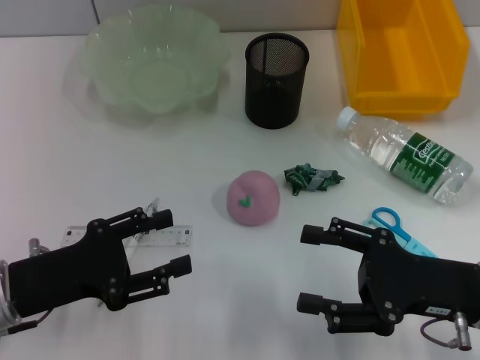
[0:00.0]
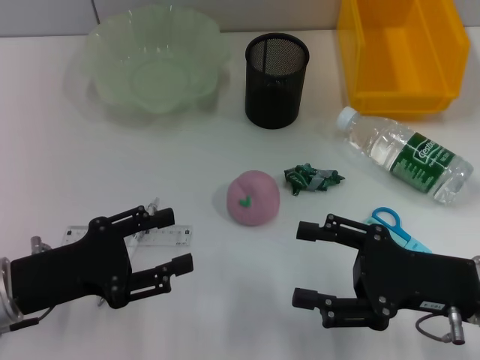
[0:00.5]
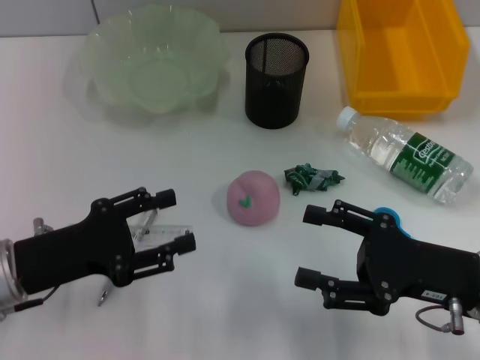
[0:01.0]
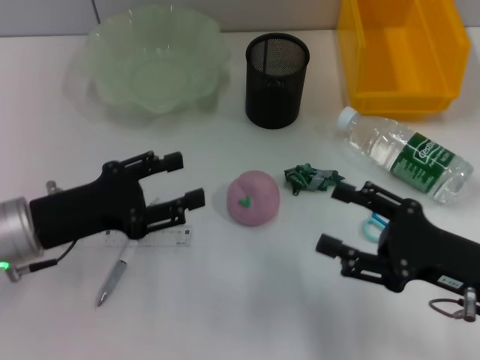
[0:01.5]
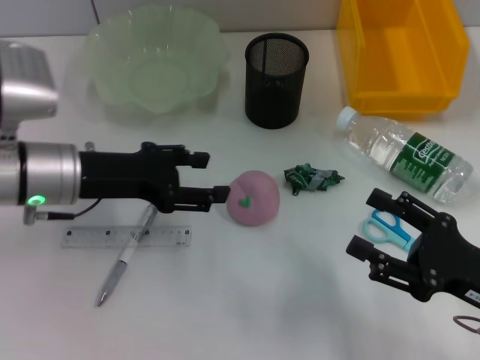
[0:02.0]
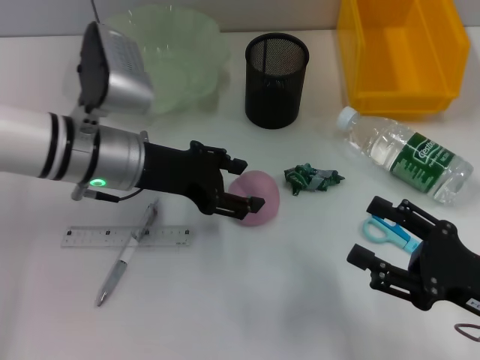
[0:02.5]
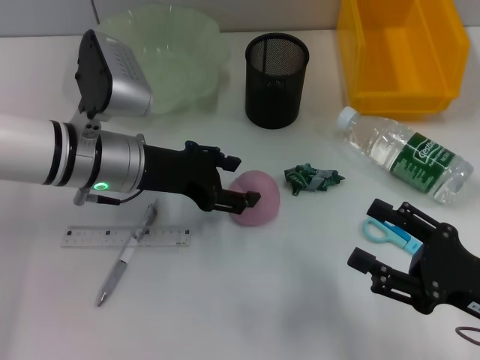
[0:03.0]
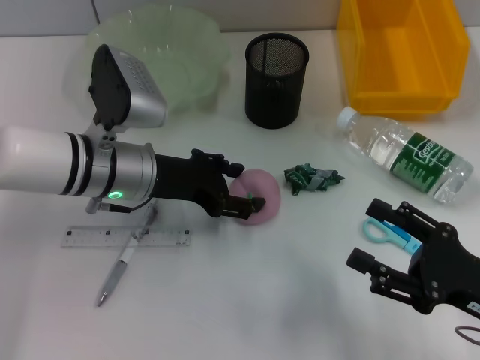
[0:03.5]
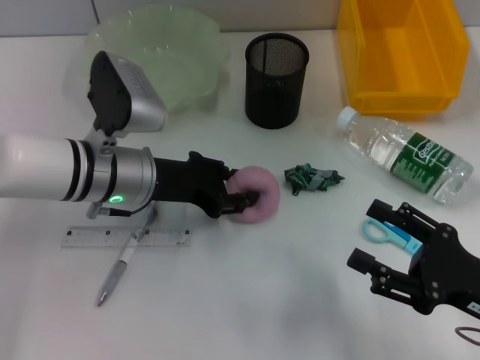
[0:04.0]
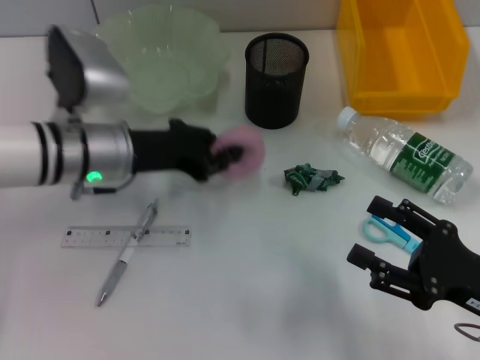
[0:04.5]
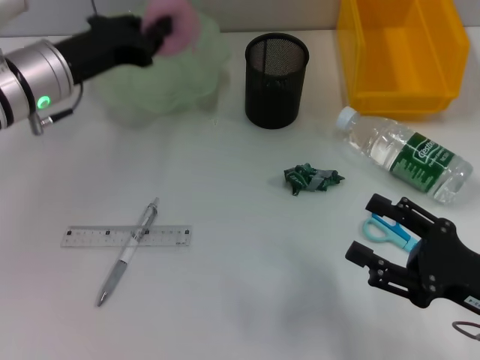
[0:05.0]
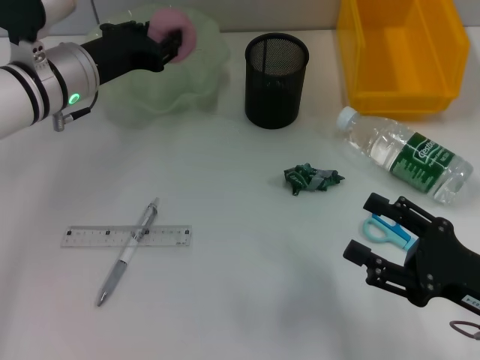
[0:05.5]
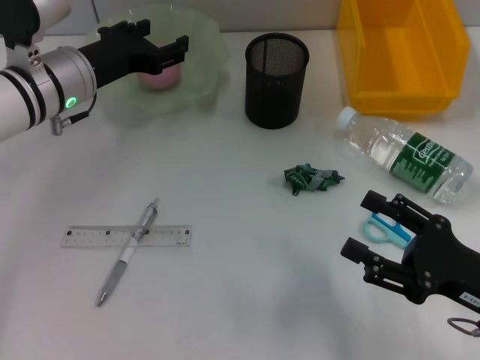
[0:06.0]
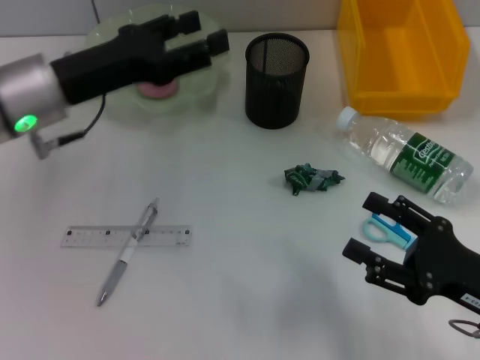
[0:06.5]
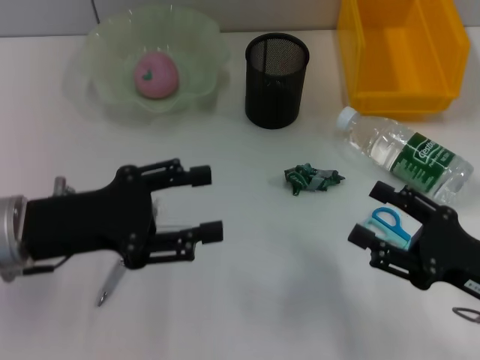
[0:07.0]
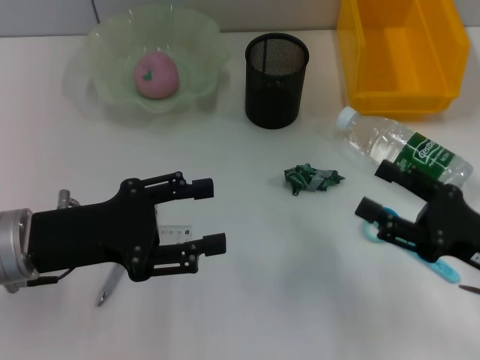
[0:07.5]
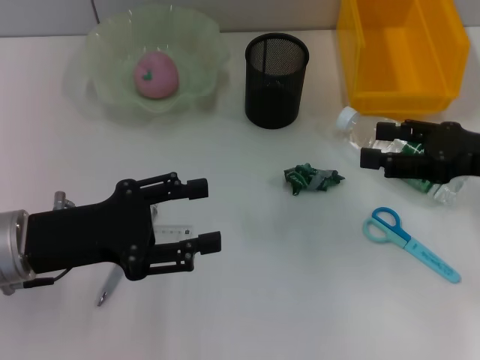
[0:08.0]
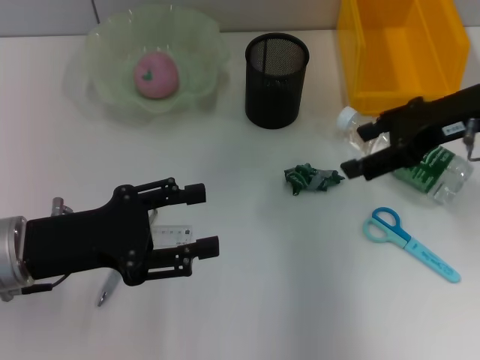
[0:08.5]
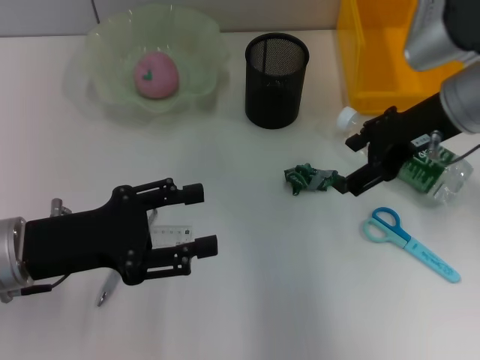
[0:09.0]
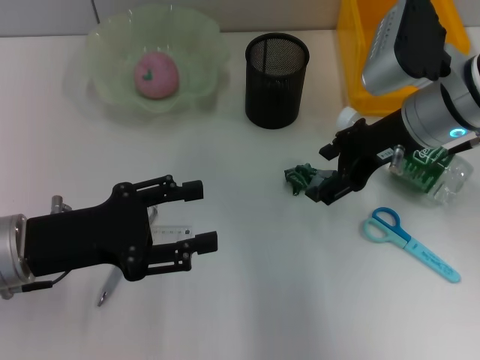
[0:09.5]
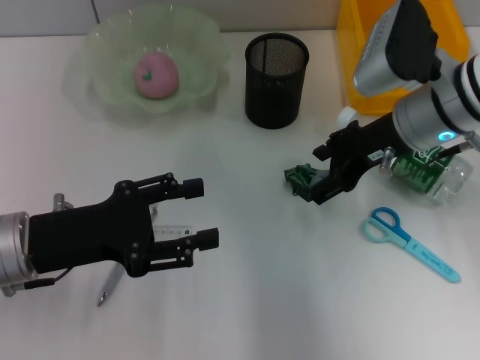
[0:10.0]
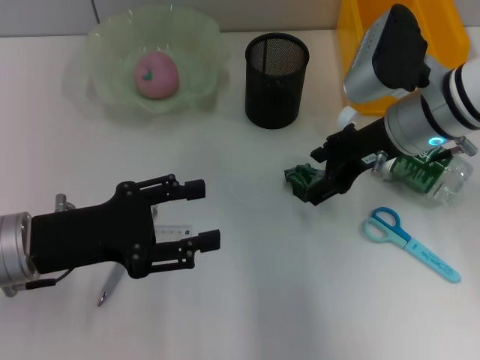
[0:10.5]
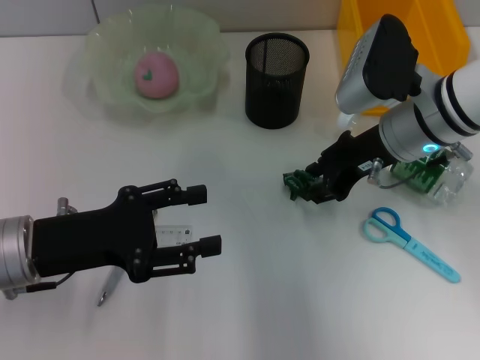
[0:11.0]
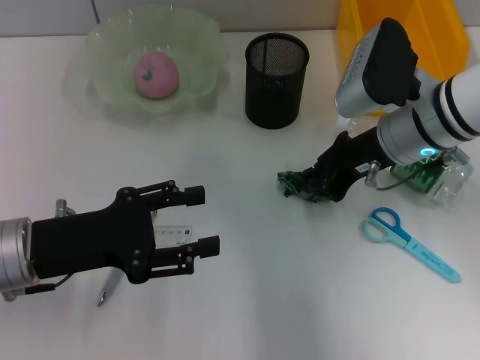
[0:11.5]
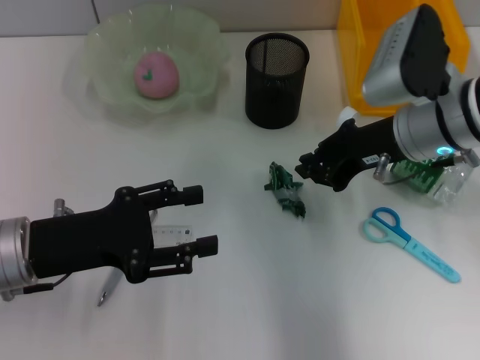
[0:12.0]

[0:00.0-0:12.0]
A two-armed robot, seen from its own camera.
Step, 0:00.0 to 0:03.5: Grab the peach with the left hand.
Step, 0:04.0 to 0:05.5: Place the peach into the fruit bowl with the left hand.
Step, 0:06.0 to 0:11.0: Grab the plastic with the right hand.
0:00.0 to 0:02.0: The left gripper shifts approximately 15 cm forward, upward and to the right.
0:02.0 to 0:04.0: The left gripper moves to the right, roughly 5 cm.
0:04.0 to 0:06.0: The left gripper heads forward, covering about 5 cm, and closes, then opens again.
0:06.0 to 0:08.0: The right gripper shifts roughly 15 cm forward and upward. Meanwhile the left gripper goes some 15 cm backward.
0:08.0 to 0:10.0: The right gripper moves to the left and forward, some 15 cm.
0:10.0 to 0:12.0: The right gripper closes its fingers.

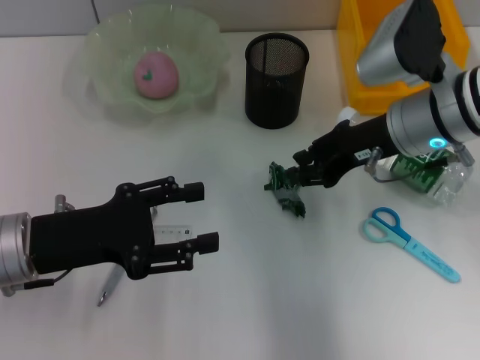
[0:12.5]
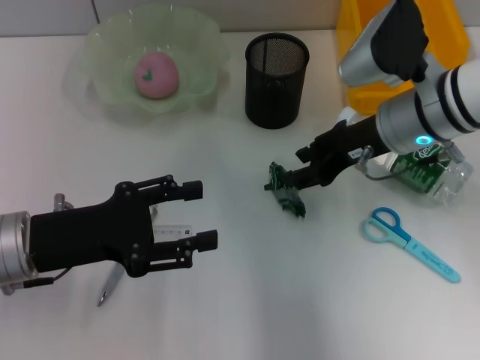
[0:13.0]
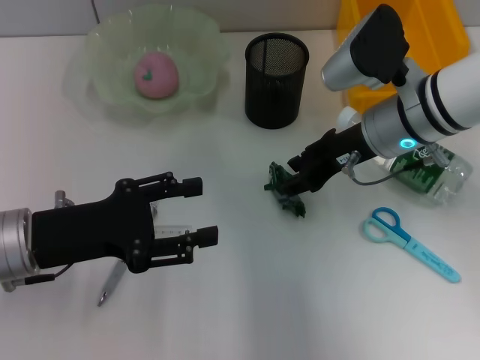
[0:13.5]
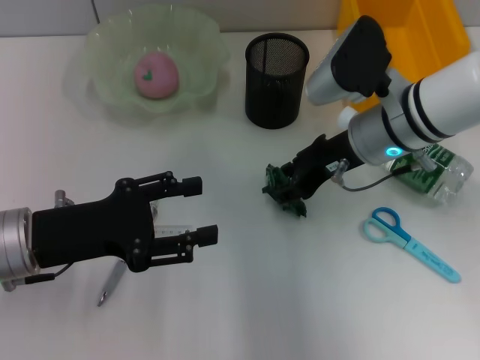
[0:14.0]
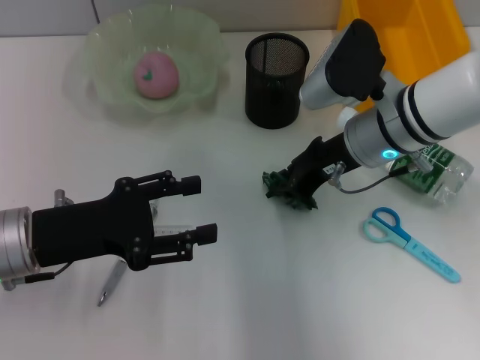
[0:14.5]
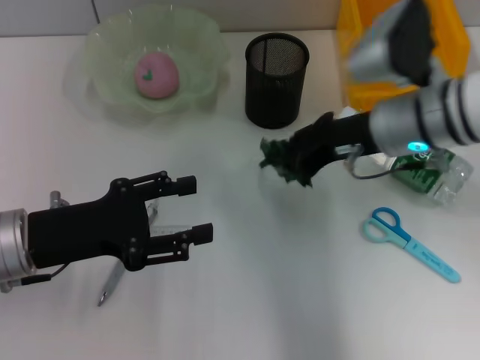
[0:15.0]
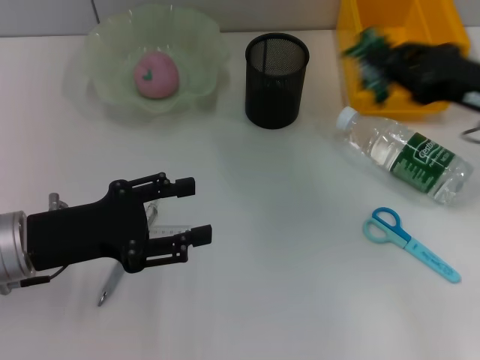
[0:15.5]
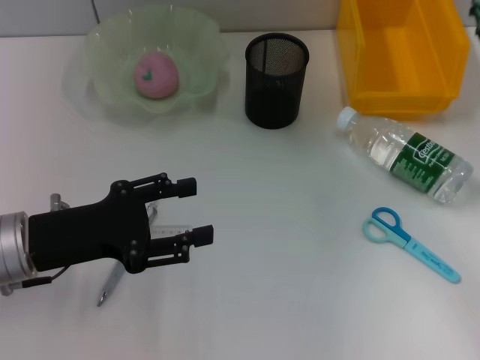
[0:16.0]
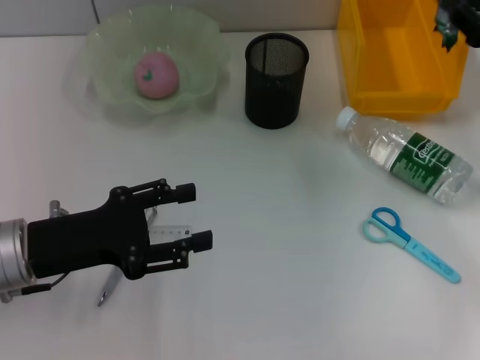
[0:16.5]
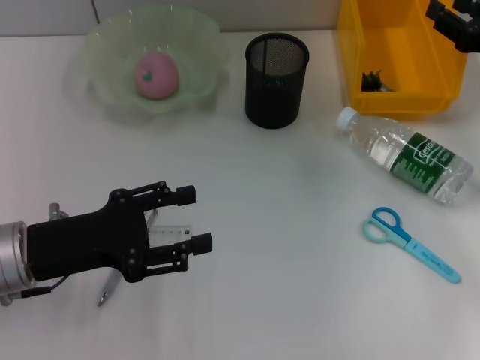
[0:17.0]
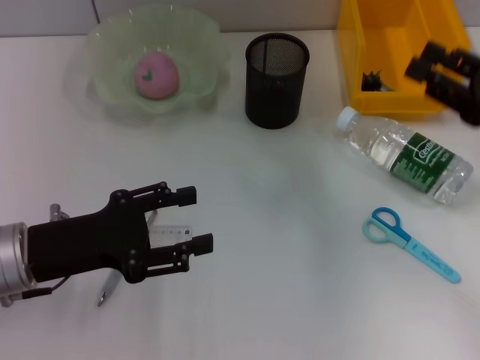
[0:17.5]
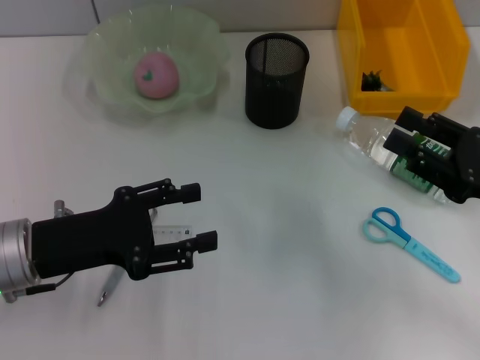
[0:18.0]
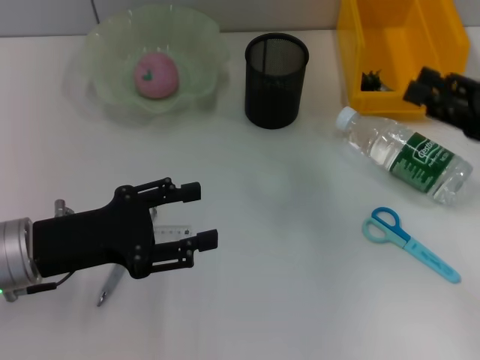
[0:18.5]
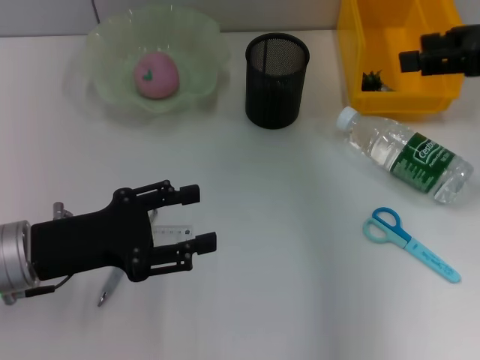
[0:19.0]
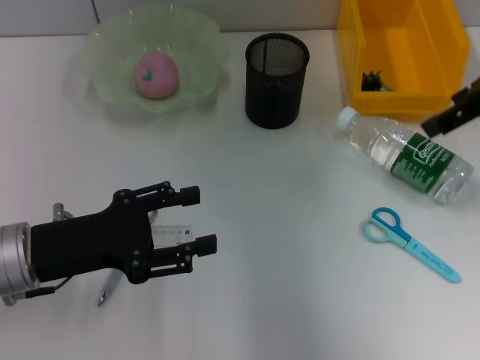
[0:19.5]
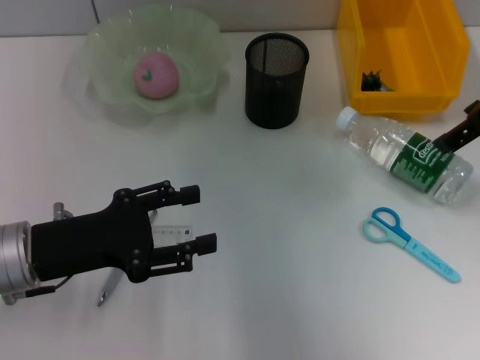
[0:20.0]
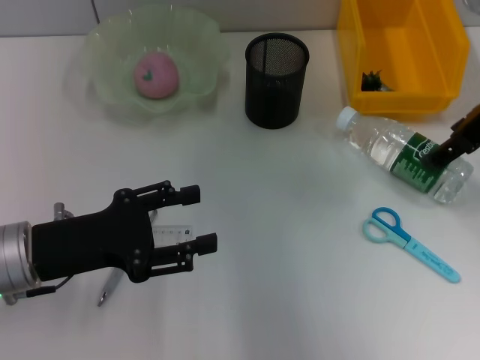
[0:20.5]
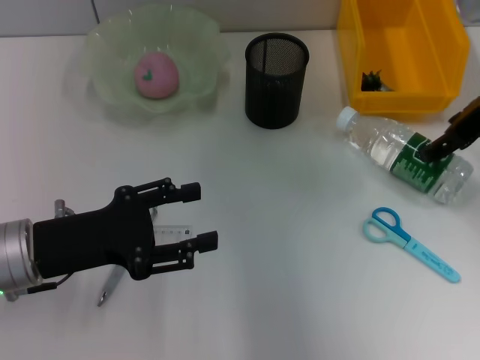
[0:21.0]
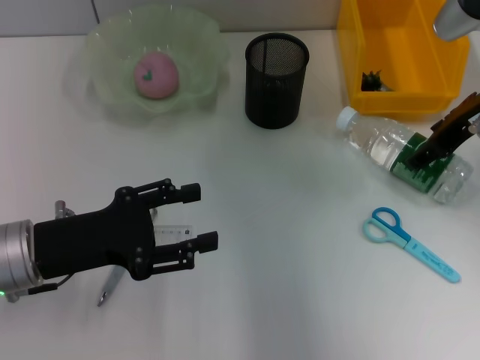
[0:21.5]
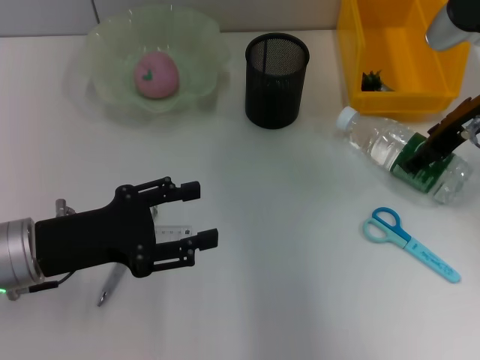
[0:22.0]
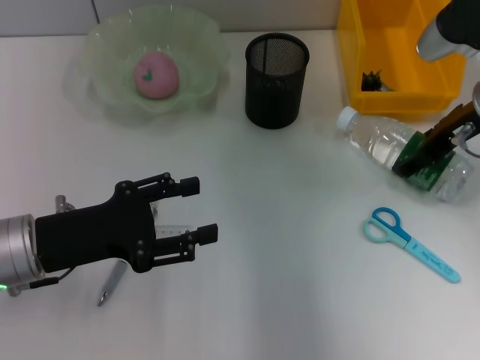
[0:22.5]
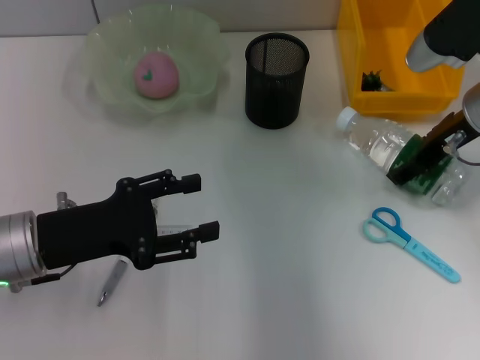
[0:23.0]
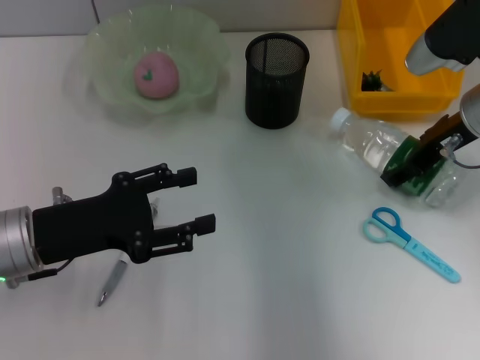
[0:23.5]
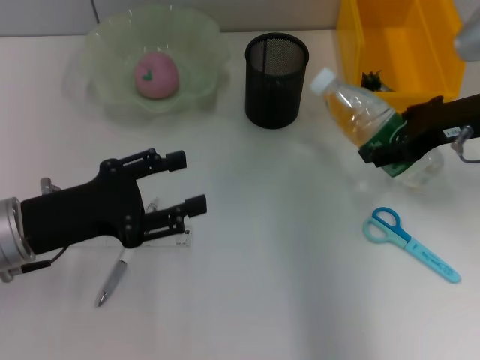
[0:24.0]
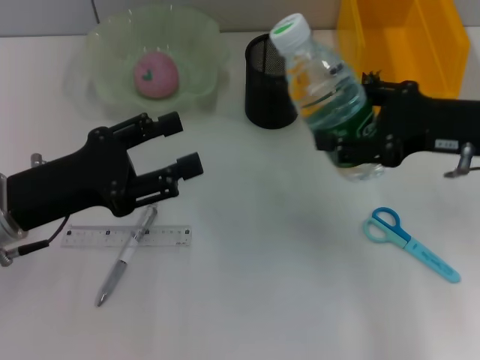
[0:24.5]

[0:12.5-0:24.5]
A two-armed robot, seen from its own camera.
Step, 0:12.5 to 0:23.0: Grab the water bottle with the right hand.
0:12.5 to 0:14.5: The grippers make only small movements.
0:14.5 to 0:16.5: The right gripper heads to the right, covering roughly 20 cm.
0:16.5 to 0:18.5: The right gripper moves backward, roughly 5 cm, and opens up.
0:18.5 to 0:20.5: The right gripper is displaced upward, forward and to the left by about 15 cm, and opens.
0:20.5 to 0:22.5: The right gripper heads downward, covering some 5 cm.
0:22.5 to 0:24.5: The right gripper heads backward, covering roughly 10 cm.

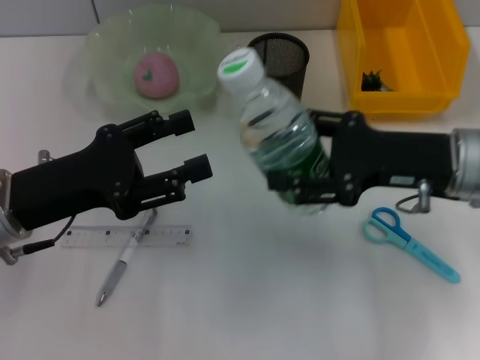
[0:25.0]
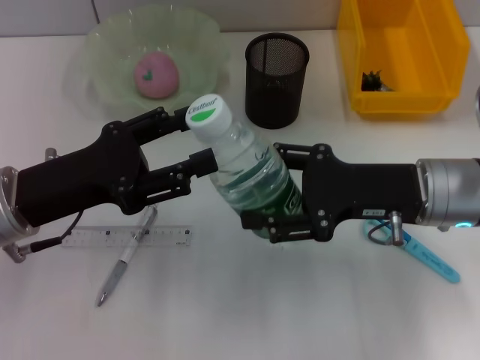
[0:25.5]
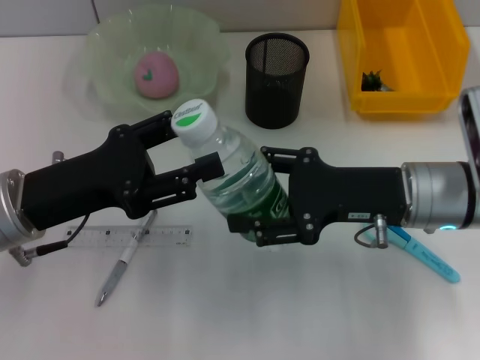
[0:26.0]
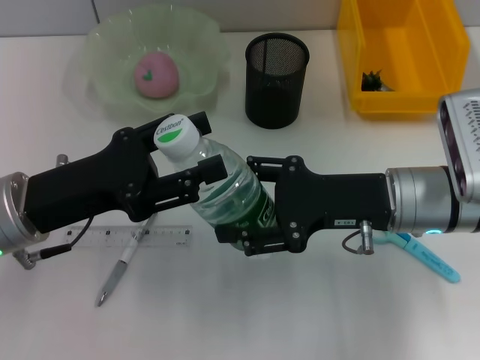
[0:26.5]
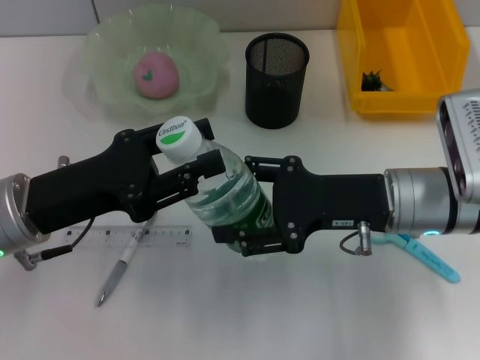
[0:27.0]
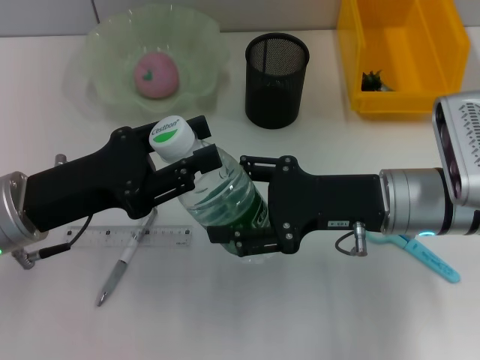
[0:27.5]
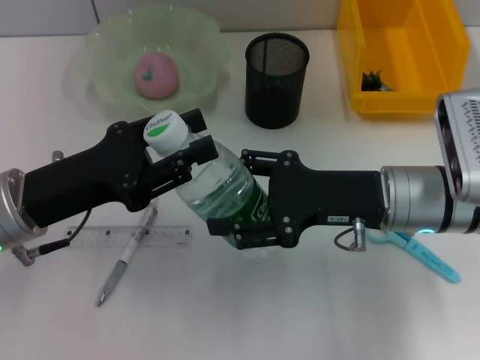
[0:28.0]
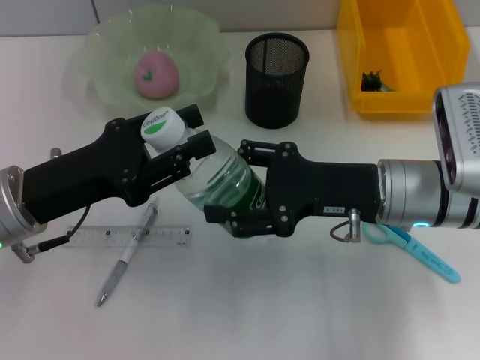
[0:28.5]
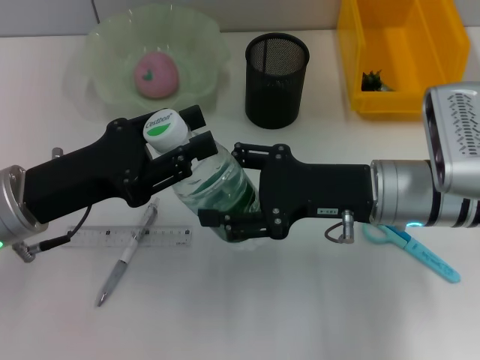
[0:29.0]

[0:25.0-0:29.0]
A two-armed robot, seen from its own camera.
0:25.0 to 0:27.0: The right gripper moves about 5 cm.
0:27.0 to 0:29.0: Both grippers stay put.
